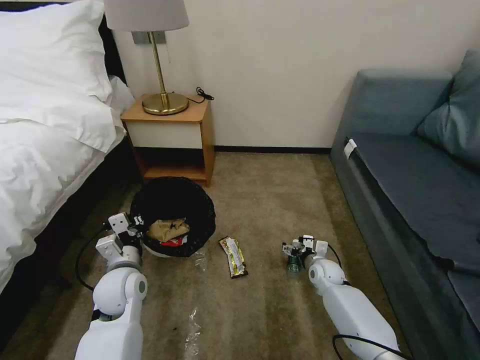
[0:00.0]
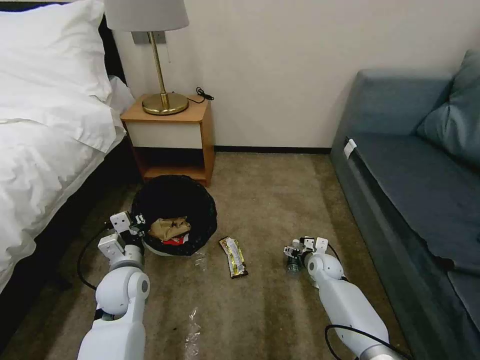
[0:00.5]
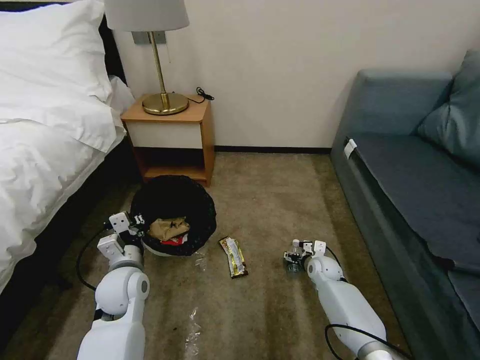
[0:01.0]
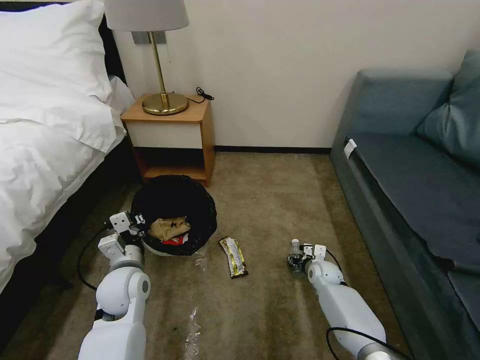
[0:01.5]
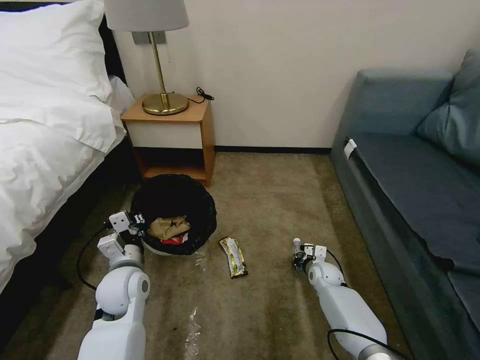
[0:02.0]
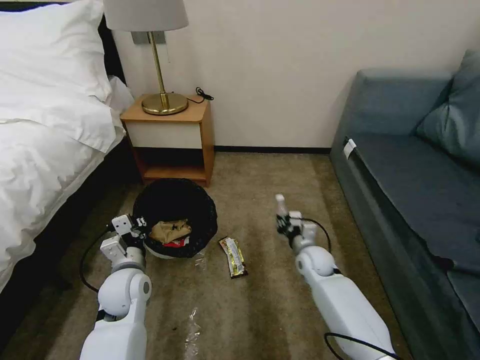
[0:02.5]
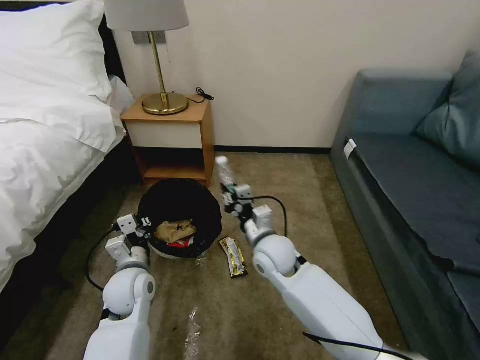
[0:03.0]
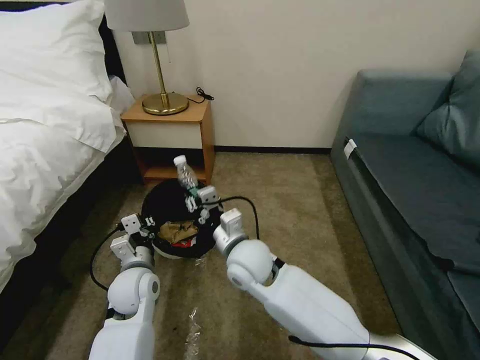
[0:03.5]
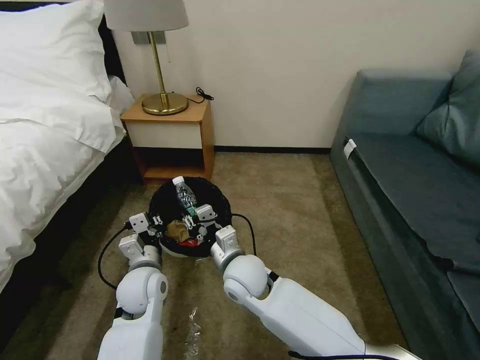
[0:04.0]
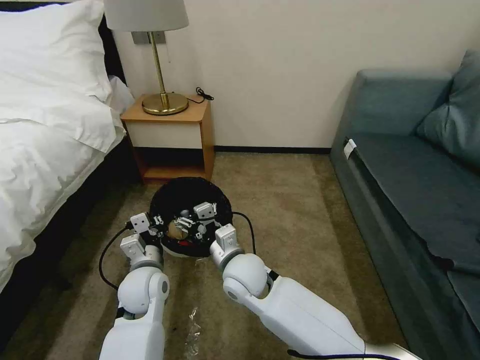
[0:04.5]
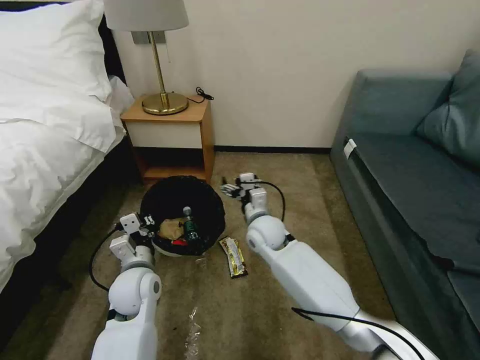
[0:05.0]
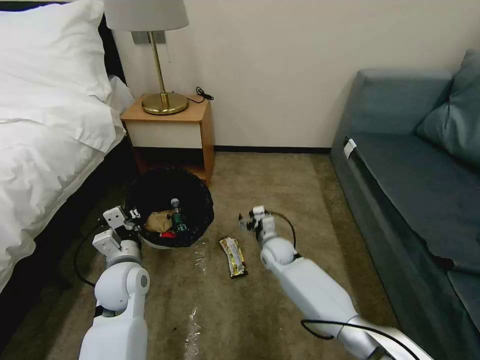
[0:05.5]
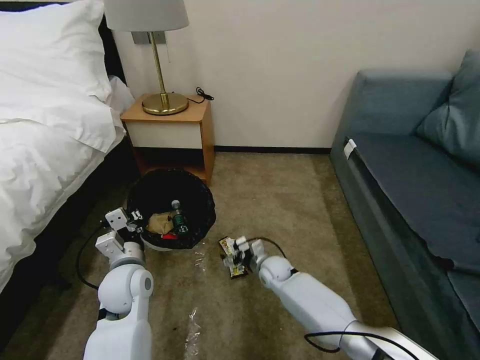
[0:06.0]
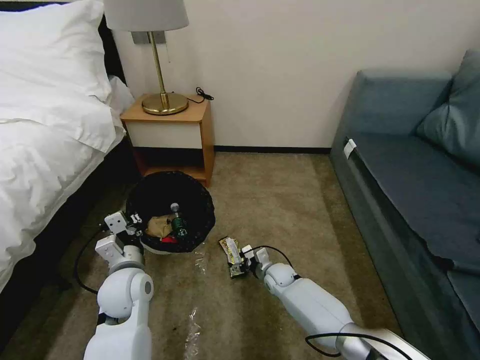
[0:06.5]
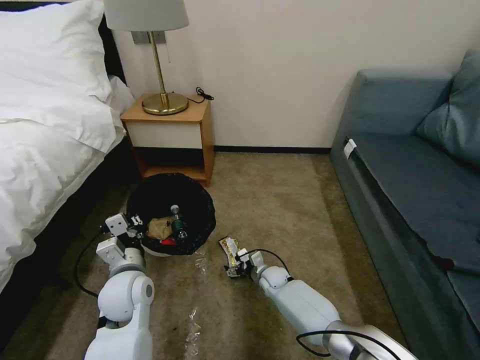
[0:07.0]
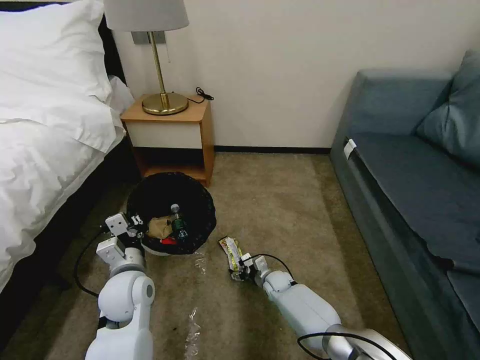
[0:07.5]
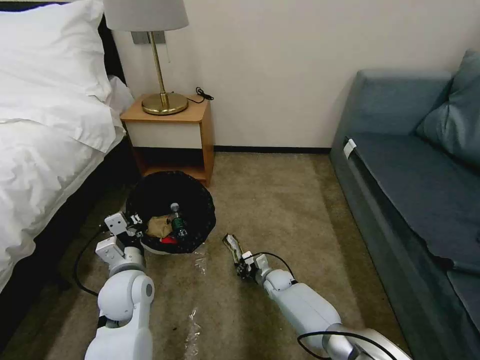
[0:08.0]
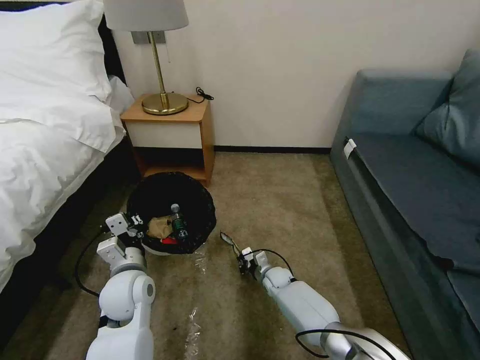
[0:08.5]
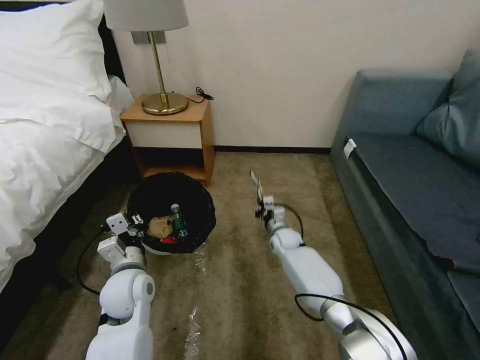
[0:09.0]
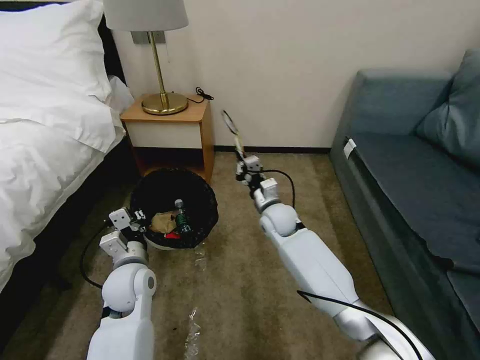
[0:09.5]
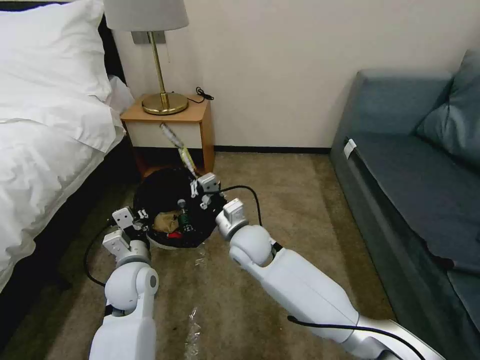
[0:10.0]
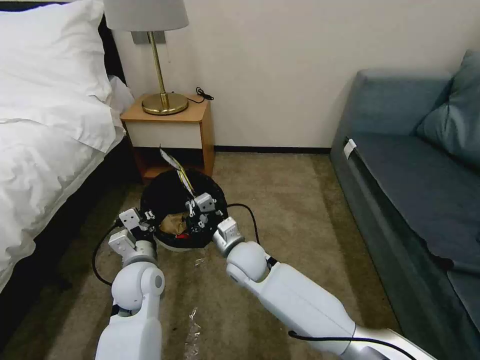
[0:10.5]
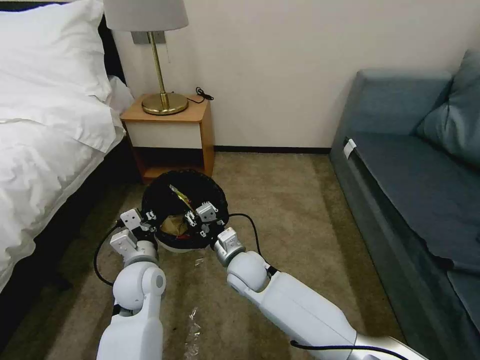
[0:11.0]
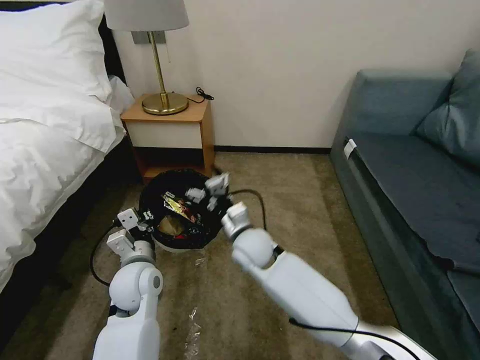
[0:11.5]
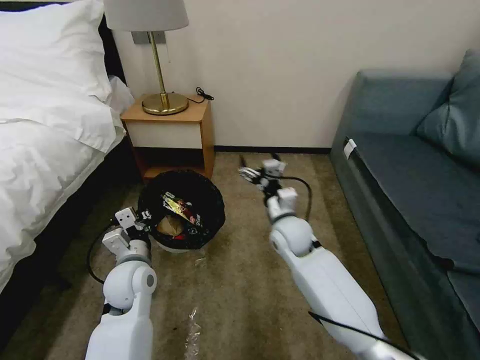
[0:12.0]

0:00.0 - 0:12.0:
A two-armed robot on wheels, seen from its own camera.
Task of the whole recording: Pick up the trash bin, then pick up the garbage on the floor and place it into the trash bin.
0:00.0 - 0:02.0: The right gripper closes up.
0:02.0 - 0:04.0: The right gripper shifts approximately 35 cm to the left and upward.
0:04.0 - 0:06.0: The right gripper is displaced downward, to the right and forward by roughly 25 cm, and opens its fingers.
0:06.0 - 0:08.0: The right gripper goes about 10 cm downward, and closes up.
0:08.0 - 0:10.0: The right gripper goes some 30 cm upward.
0:10.0 - 0:12.0: The right gripper travels to the right by roughly 10 cm, and opens up.

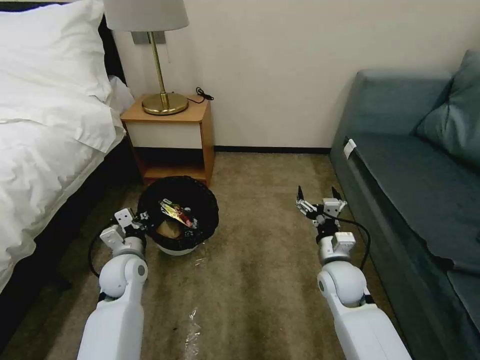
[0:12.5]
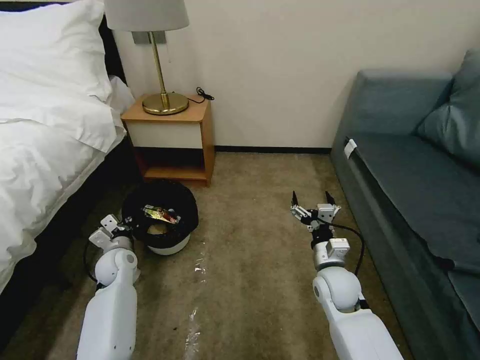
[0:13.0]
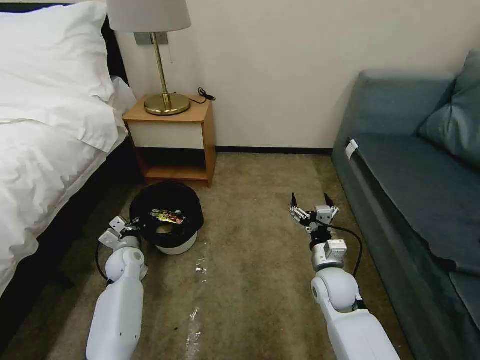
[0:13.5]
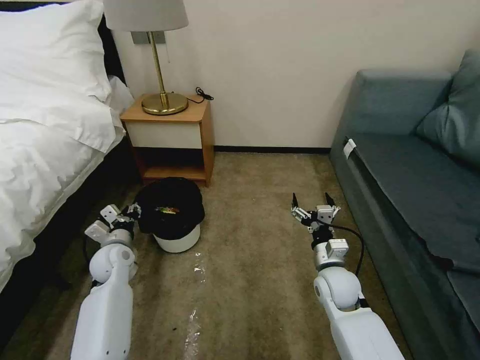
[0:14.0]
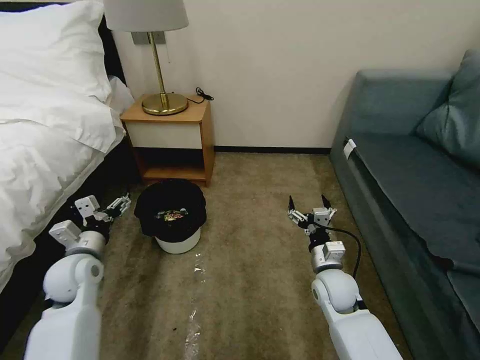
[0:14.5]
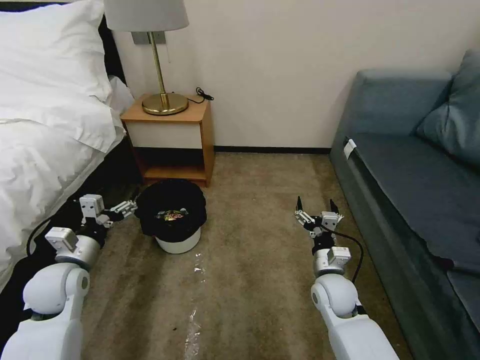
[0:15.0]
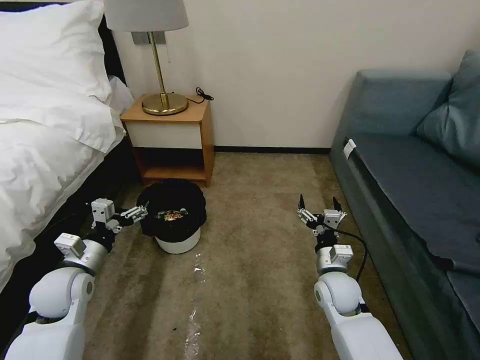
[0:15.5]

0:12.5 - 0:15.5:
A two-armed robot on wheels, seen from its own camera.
Task of the whole recording: Pick up the trash bin, then pick up the garbage on the floor and place it into the trash bin.
0:12.5 - 0:14.0: The left gripper heads to the left, covering roughly 5 cm, reaches roughly 10 cm downward, then returns, and opens its fingers.
0:14.0 - 0:15.5: The left gripper travels backward and upward by approximately 10 cm, and opens its fingers.

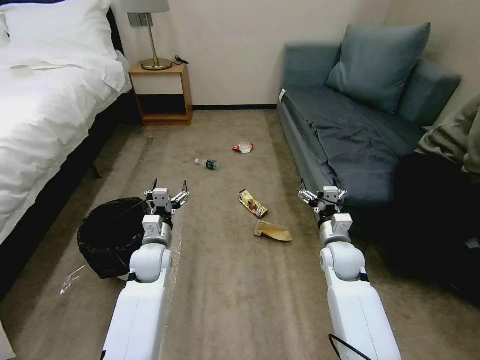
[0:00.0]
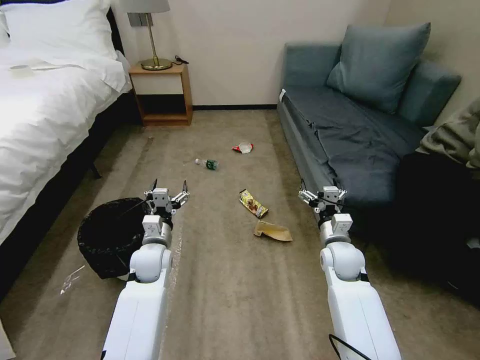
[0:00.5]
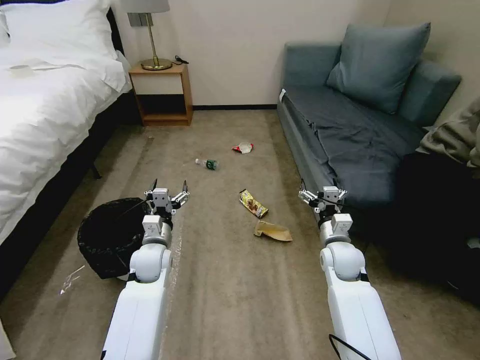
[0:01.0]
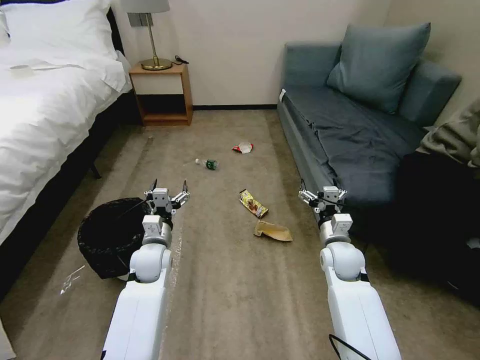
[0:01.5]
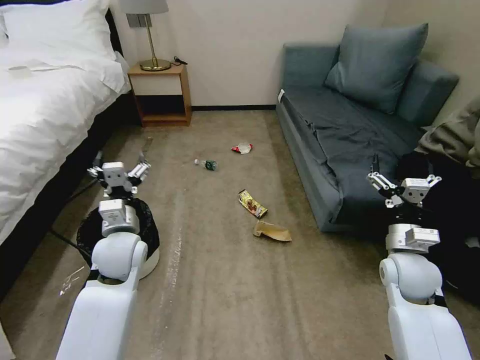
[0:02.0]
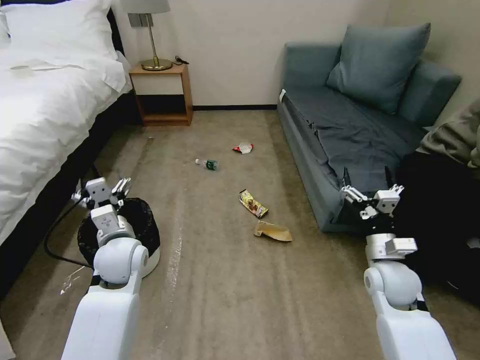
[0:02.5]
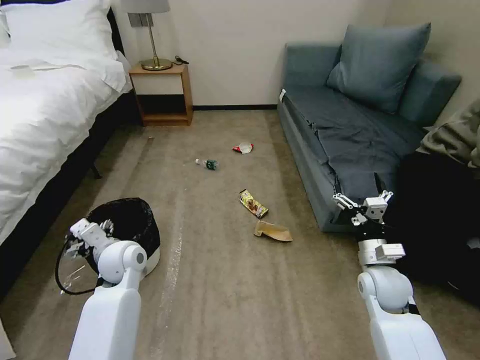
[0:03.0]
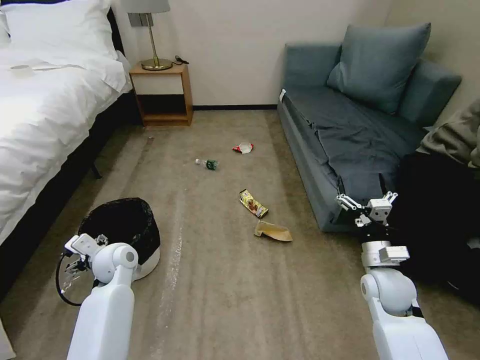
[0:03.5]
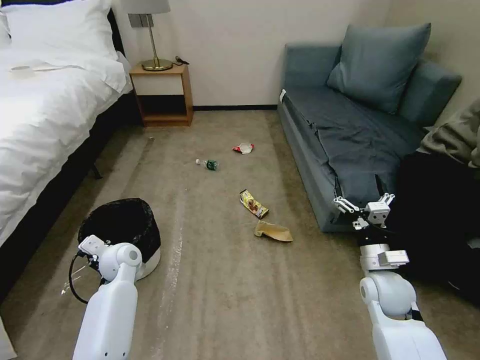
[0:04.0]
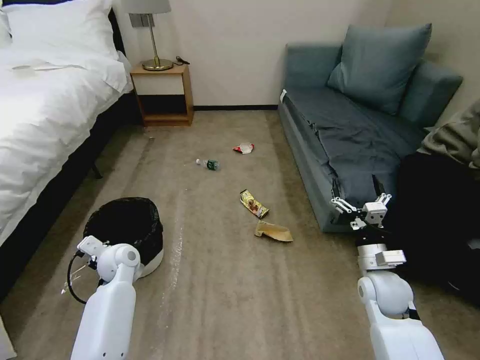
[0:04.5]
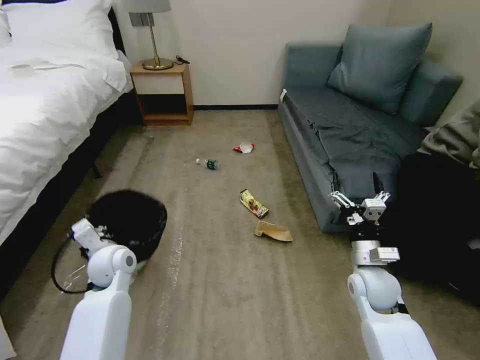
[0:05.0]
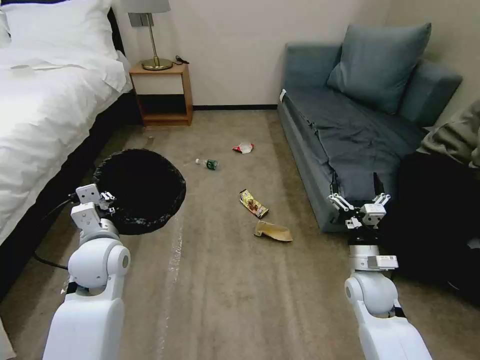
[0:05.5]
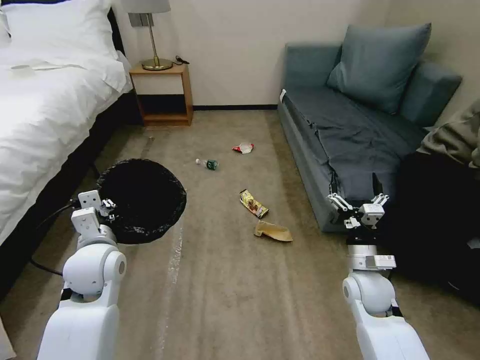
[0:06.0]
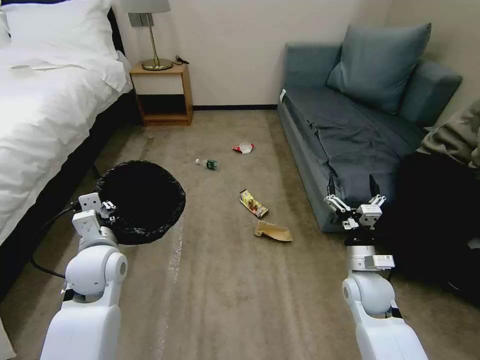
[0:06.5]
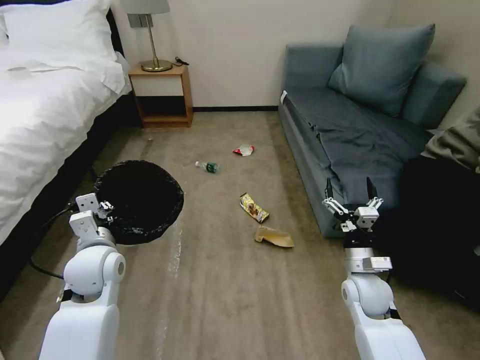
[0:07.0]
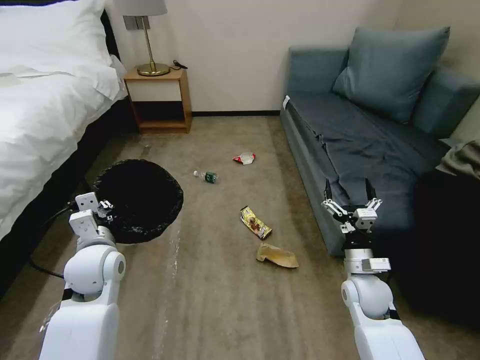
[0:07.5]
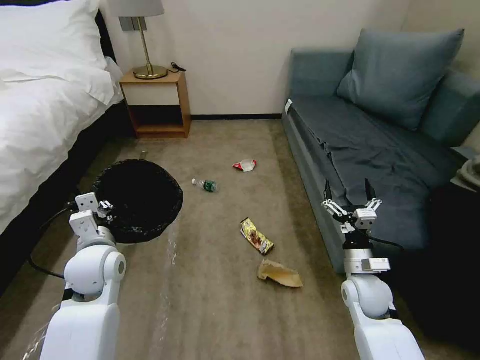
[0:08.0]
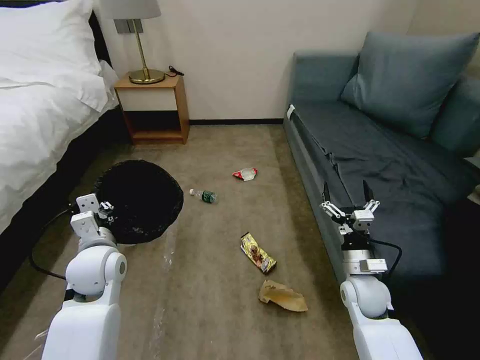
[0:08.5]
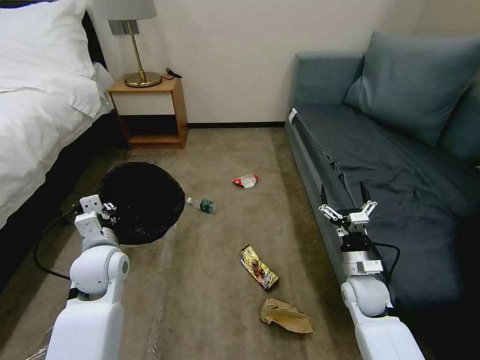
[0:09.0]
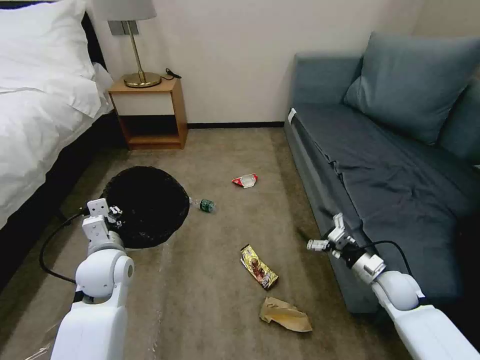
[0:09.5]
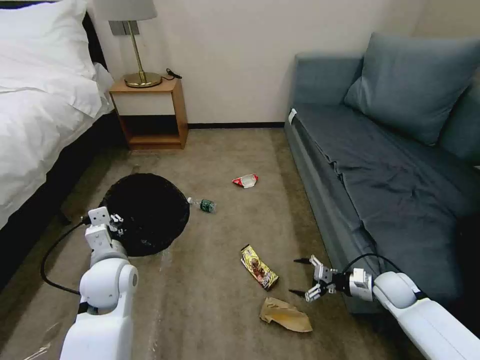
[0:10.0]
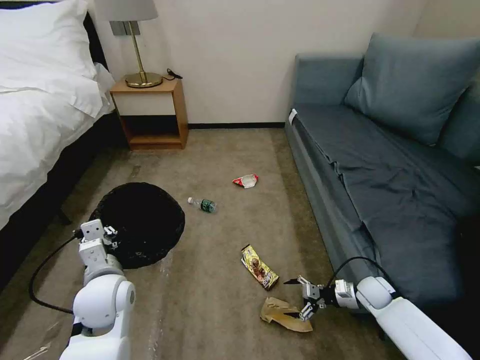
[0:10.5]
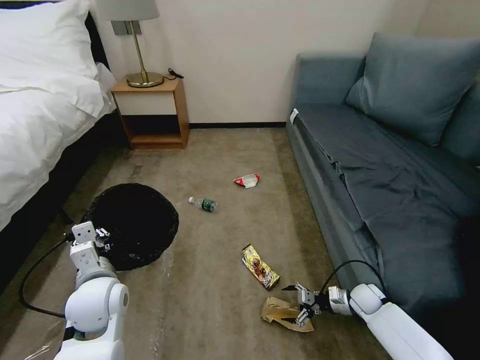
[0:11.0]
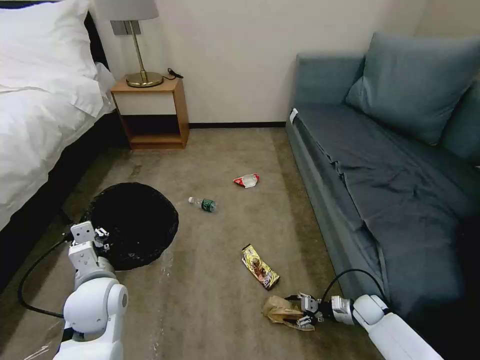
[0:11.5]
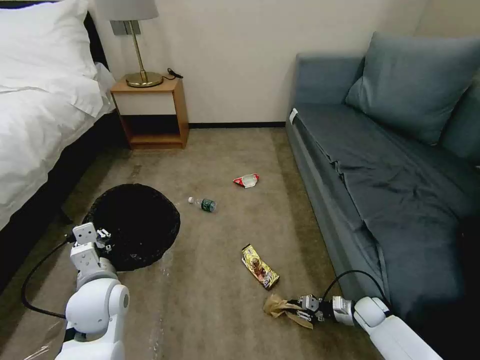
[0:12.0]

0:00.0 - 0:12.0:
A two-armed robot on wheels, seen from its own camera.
Task of the whole recording: Pick up the trash bin, then pick up the garbage on the floor and place it into the trash bin.
0:02.0 - 0:04.0: The right gripper travels downward by some 5 cm. The left gripper goes about 10 cm downward and to the left, and closes.
0:04.0 - 0:06.0: The left gripper heads upward and backward, covering about 15 cm, and closes.
0:08.0 - 0:10.0: The right gripper heads to the right and downward, covering roughly 15 cm.
0:10.0 - 0:12.0: The right gripper is displaced downward by about 15 cm, and closes.
